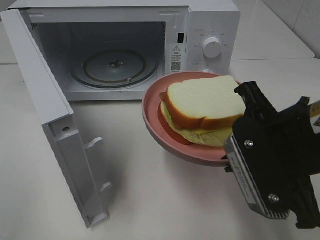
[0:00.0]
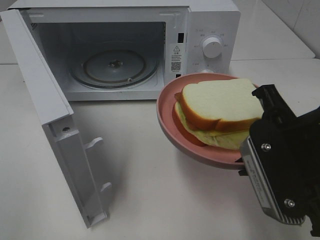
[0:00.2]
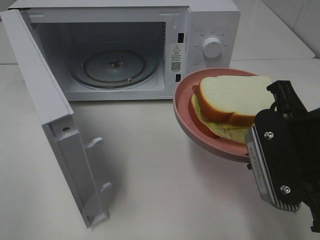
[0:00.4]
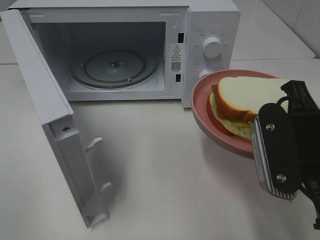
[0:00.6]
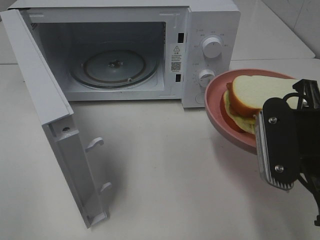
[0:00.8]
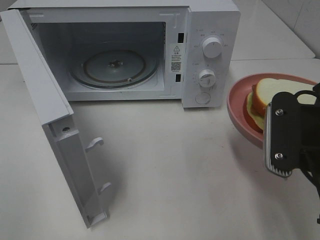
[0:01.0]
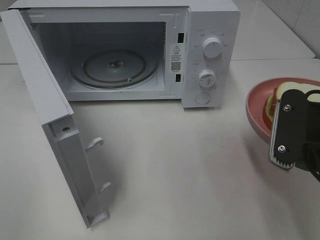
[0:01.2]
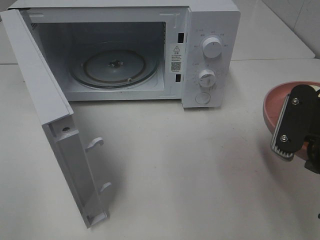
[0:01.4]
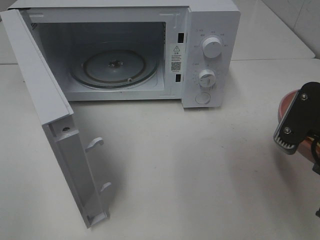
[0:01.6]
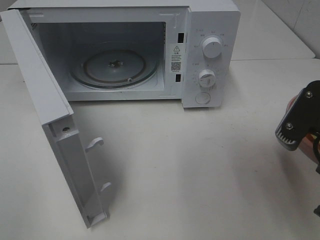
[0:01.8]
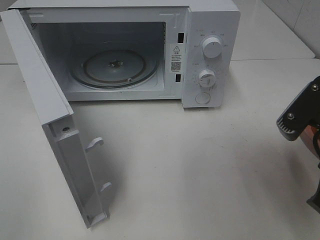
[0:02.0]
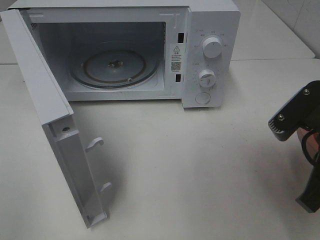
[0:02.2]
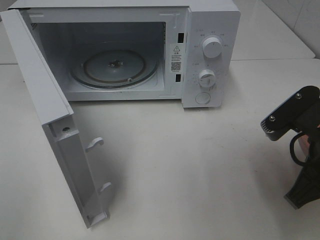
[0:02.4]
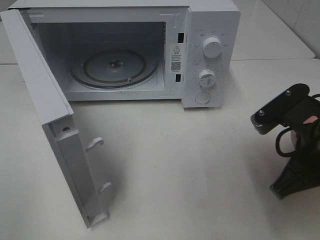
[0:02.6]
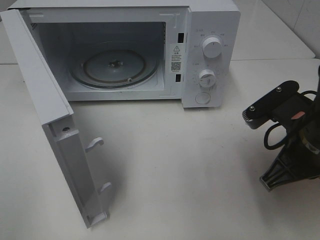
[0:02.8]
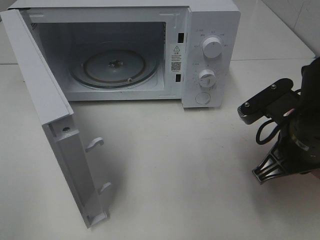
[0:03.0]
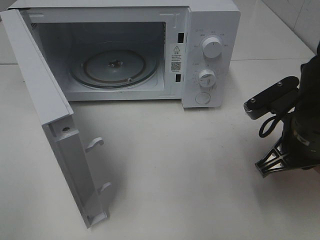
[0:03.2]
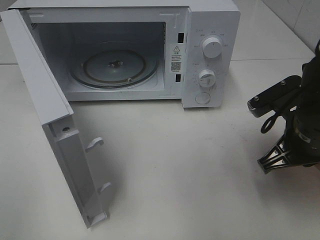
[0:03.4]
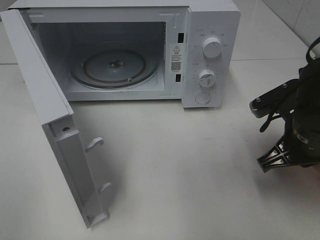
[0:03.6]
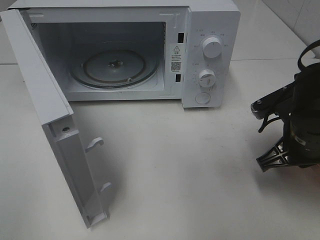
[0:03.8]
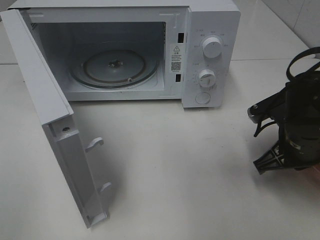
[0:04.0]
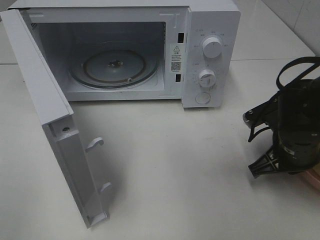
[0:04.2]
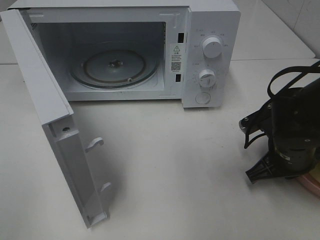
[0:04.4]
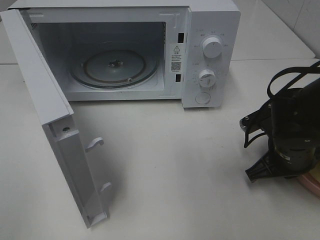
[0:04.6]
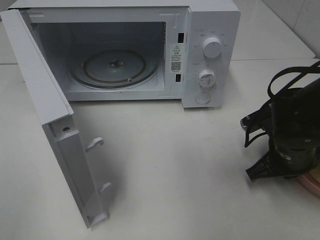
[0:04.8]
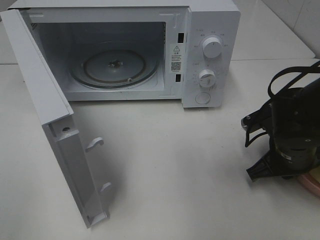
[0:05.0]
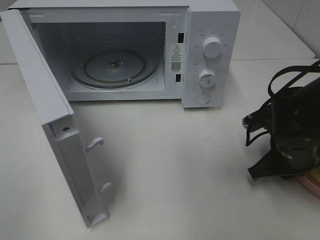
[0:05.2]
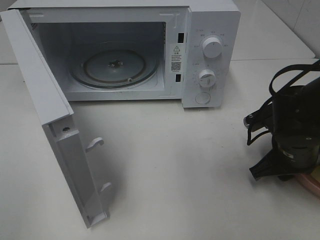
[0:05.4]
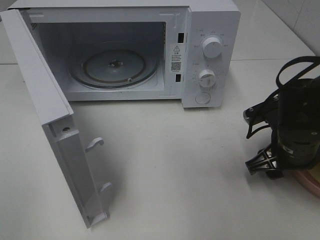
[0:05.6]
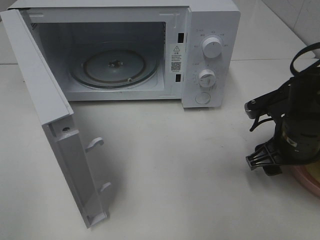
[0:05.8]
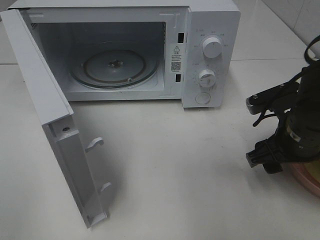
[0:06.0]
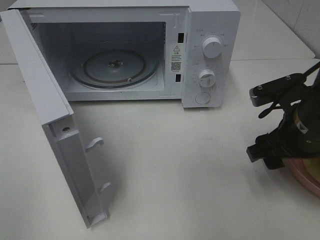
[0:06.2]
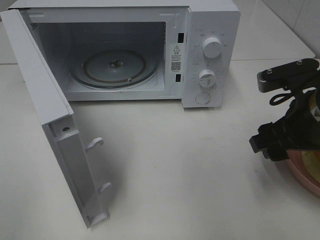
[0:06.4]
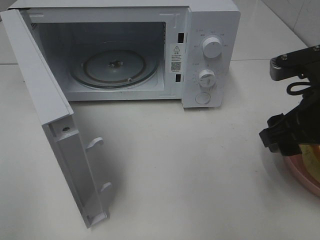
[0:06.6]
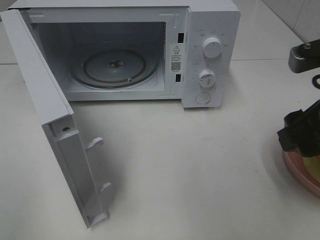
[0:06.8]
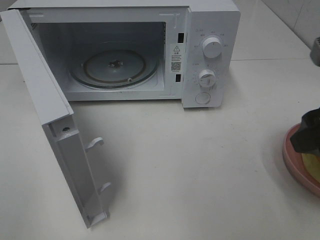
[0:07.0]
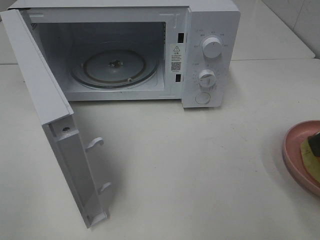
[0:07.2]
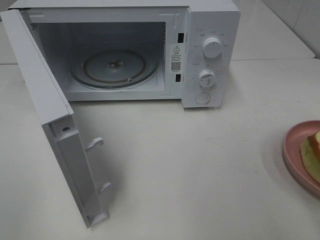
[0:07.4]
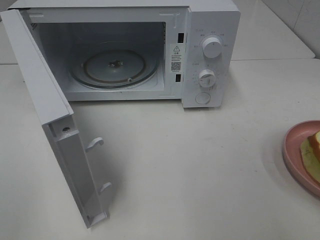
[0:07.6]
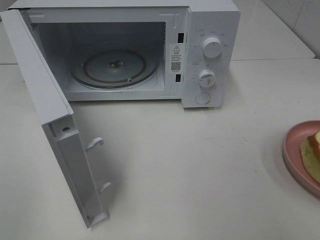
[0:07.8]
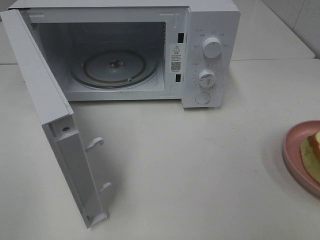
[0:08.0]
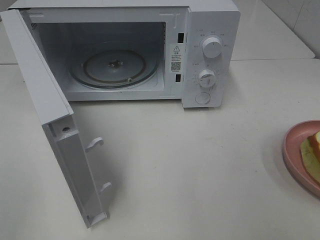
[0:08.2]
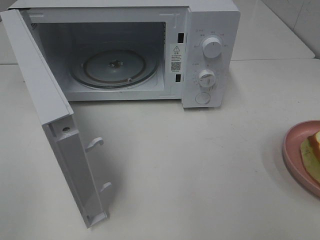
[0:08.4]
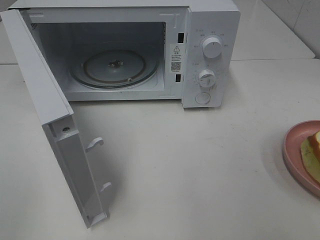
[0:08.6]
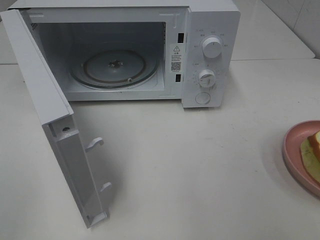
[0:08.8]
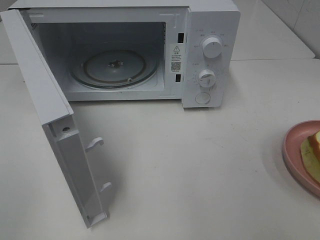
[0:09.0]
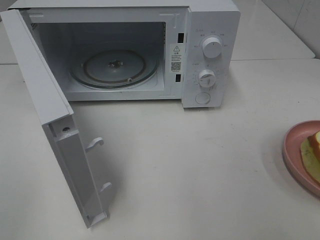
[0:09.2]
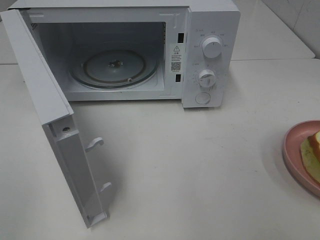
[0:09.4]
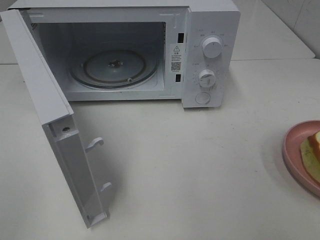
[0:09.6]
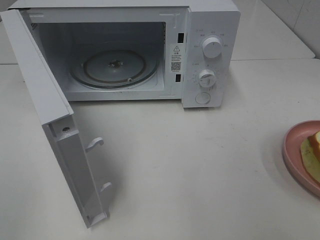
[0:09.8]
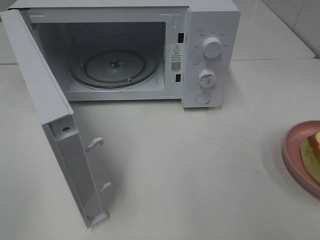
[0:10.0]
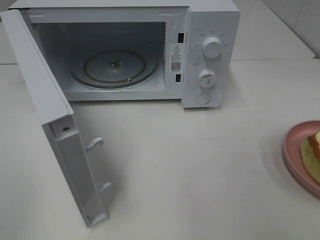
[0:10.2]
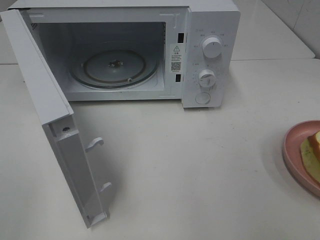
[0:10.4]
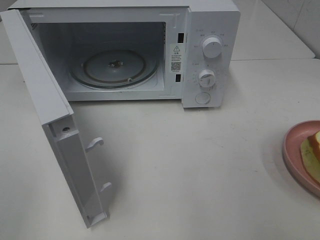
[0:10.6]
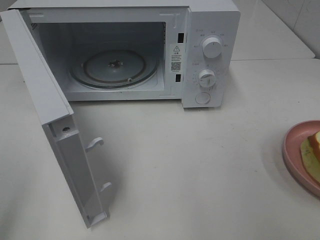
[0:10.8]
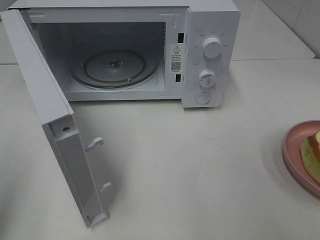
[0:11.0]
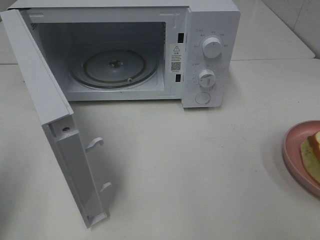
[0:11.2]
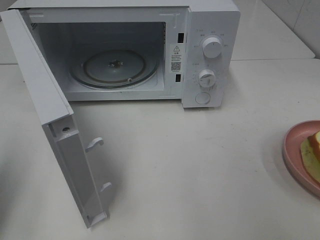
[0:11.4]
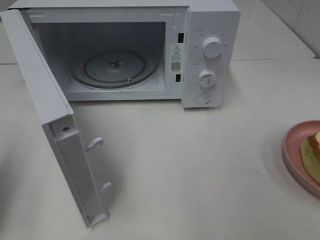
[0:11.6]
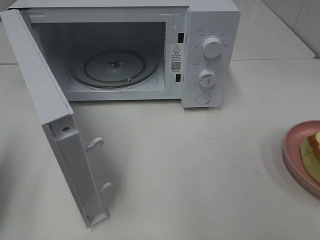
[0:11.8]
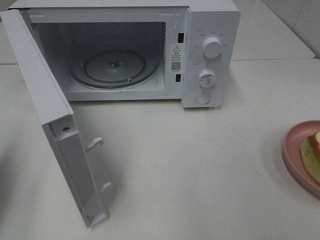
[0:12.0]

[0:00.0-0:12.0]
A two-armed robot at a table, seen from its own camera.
Task of the whole recording: Heat Sandwich.
Step, 0:00.0 to 0:06.6: Right hand: place the plate on the table.
0:00.0 to 0:01.6: The right gripper goes some 5 cm to the right.
0:01.6 to 0:03.0: The right gripper shifts some 5 cm forward.
0:03.0 to 0:04.4: The right gripper travels downward by approximately 10 cm.
0:04.4 to 0:06.0: The right gripper travels upward by about 5 cm, and opens up.
0:06.0 to 0:07.6: The right gripper moves backward and upward, some 25 cm.
0:10.4 to 0:12.0: The left gripper goes roughly 20 cm forward and downward, and closes up.

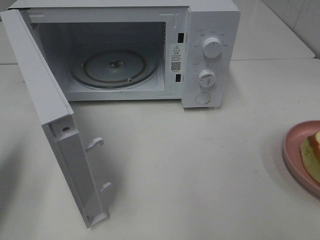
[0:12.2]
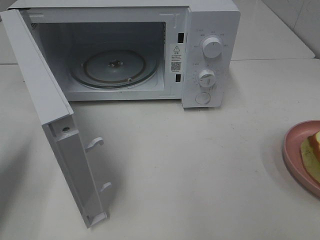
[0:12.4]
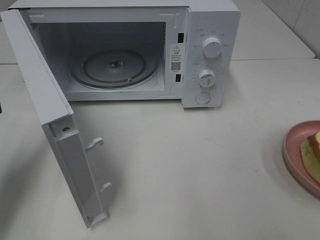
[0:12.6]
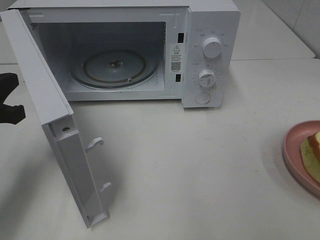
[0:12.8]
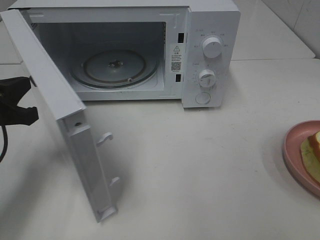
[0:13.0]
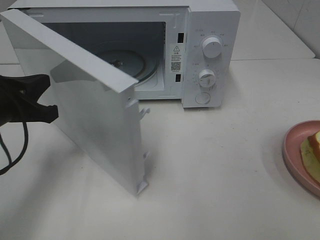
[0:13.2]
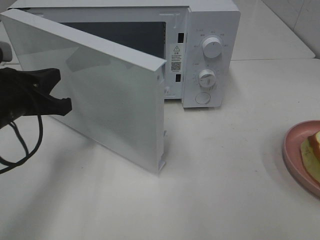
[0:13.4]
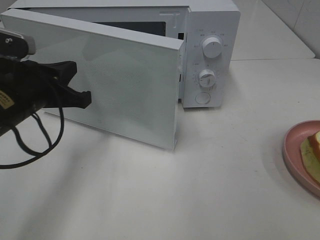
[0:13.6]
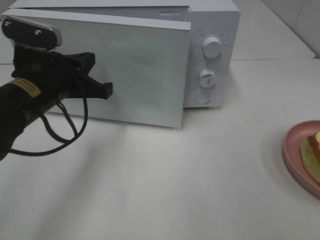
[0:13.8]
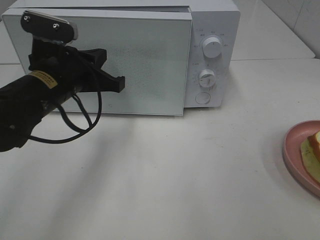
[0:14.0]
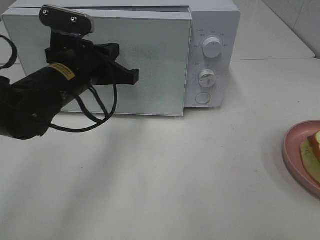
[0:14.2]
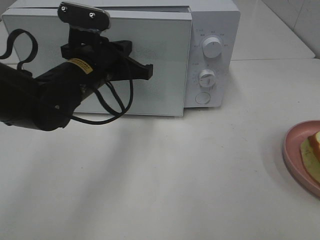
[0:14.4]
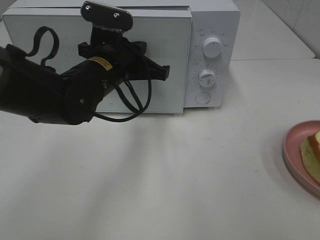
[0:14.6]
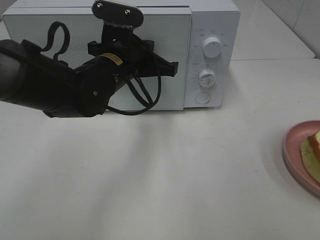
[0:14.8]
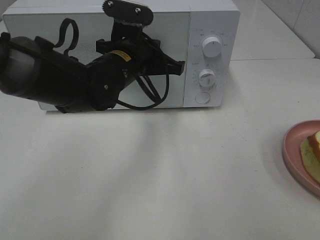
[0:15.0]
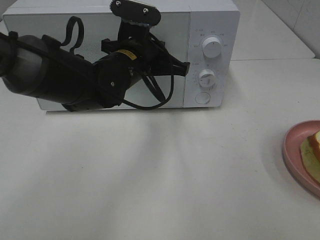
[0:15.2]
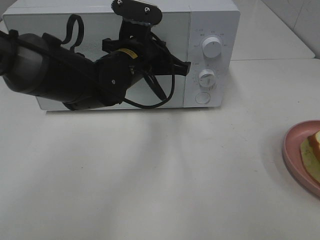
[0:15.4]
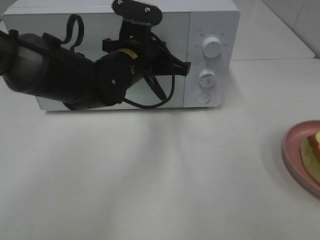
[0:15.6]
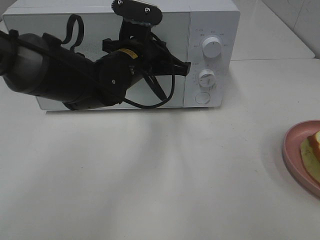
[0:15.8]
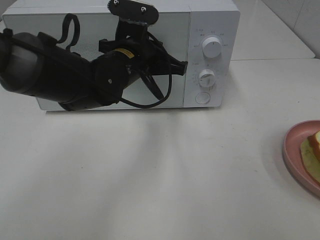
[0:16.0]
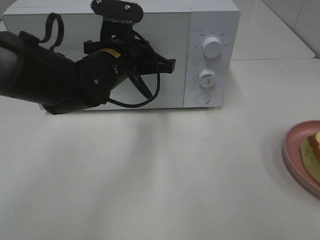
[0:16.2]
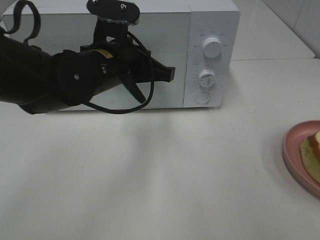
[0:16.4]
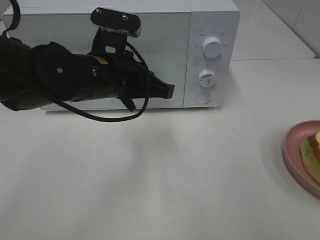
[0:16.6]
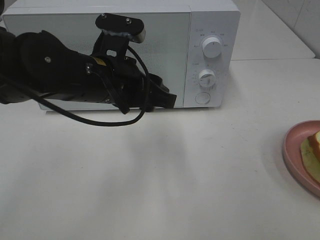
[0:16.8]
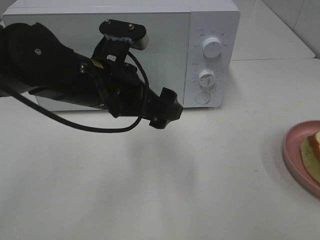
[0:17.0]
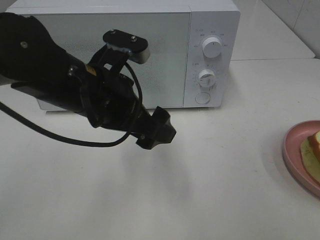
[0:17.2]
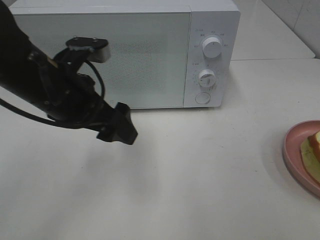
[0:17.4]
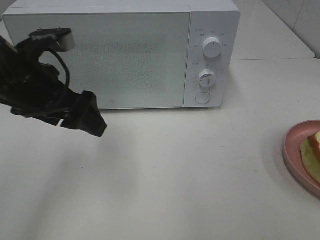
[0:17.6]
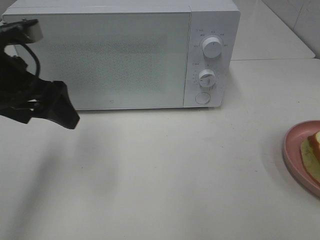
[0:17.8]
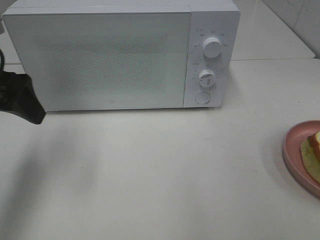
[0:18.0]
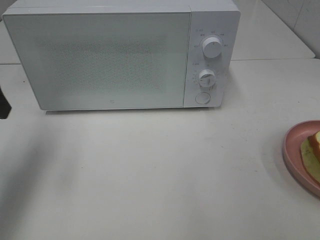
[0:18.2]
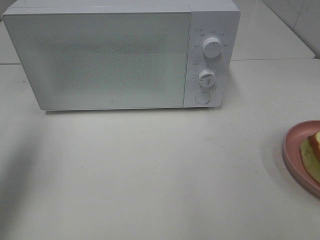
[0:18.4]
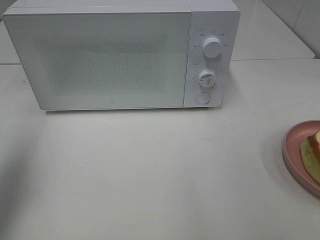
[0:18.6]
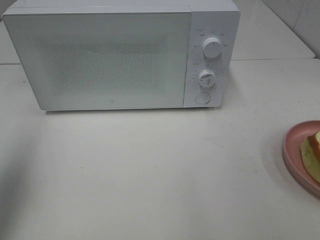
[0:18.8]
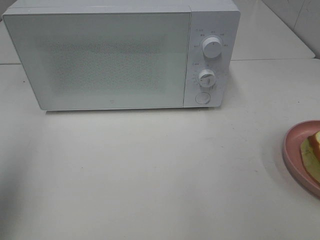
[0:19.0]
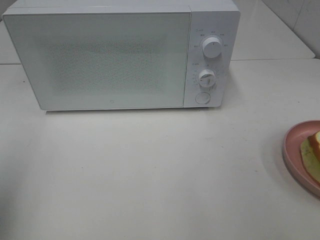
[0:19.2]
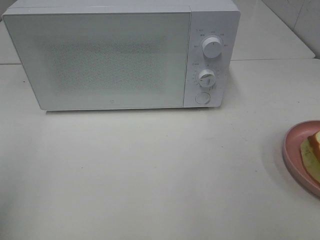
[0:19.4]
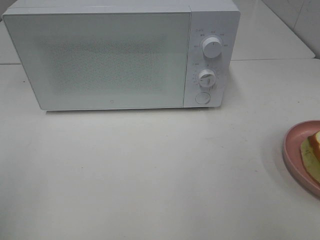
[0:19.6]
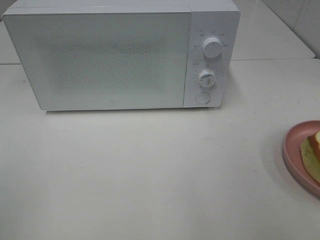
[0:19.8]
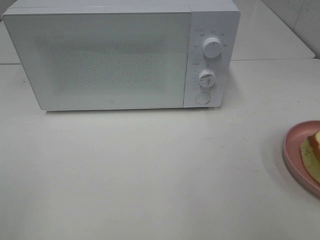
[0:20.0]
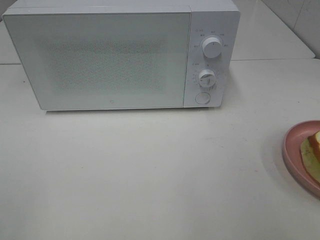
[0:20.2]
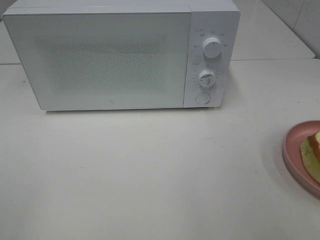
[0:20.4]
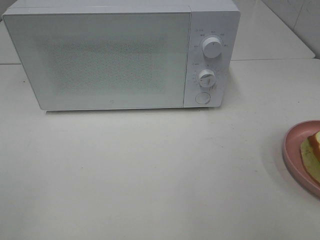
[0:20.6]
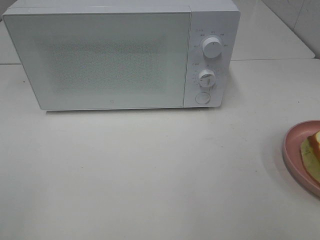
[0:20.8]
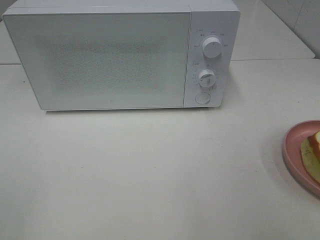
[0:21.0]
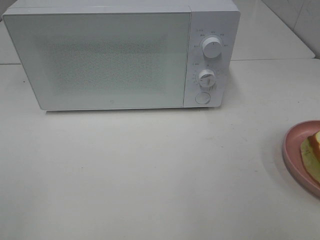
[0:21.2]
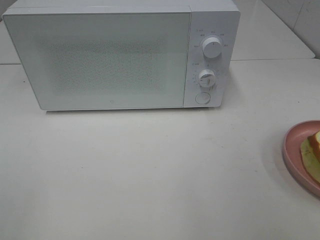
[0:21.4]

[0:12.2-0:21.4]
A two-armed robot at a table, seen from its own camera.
Task of the whole recording: Heat Sandwich.
Step, 0:12.2 to 0:16.4: Left hand: close the microwave door.
0:12.2 to 0:13.8: The left gripper travels to the right and forward by some 20 cm.
0:13.8 to 0:15.2: The left gripper heads to the right and forward, covering about 15 cm.
0:15.2 to 0:16.8: The left gripper travels backward by some 10 cm, and opens.
0:16.8 to 0:18.4: The left gripper goes about 25 cm to the left, and opens.
0:18.4 to 0:19.8: The left gripper travels backward by approximately 20 cm.

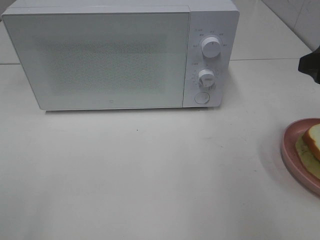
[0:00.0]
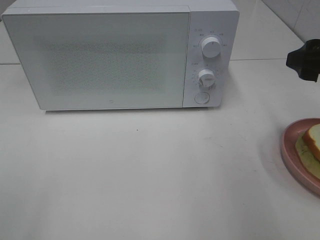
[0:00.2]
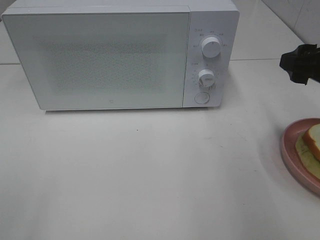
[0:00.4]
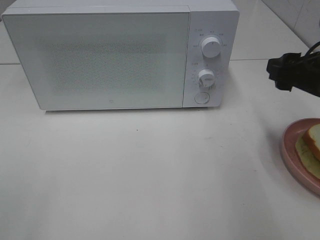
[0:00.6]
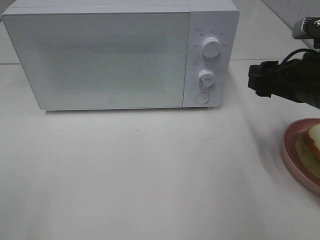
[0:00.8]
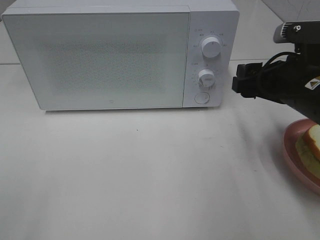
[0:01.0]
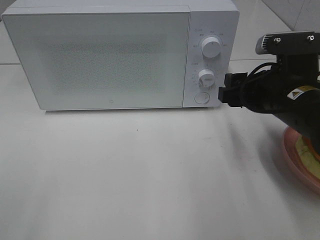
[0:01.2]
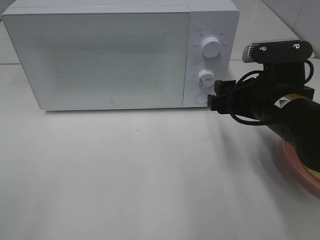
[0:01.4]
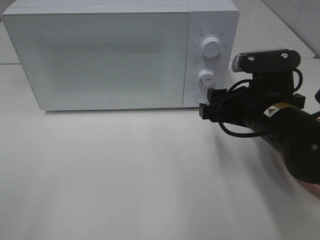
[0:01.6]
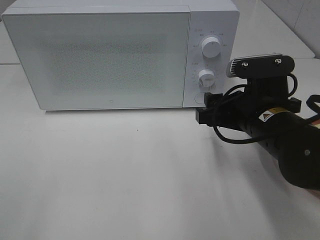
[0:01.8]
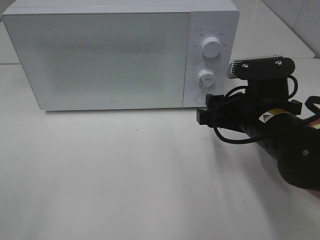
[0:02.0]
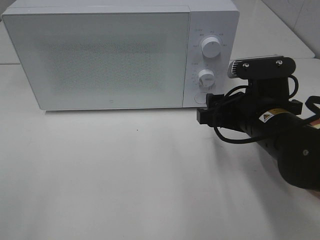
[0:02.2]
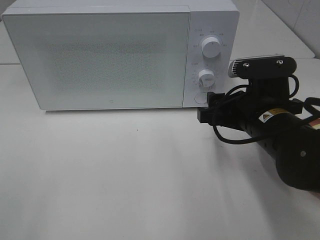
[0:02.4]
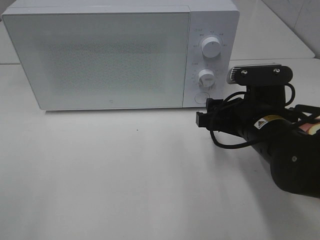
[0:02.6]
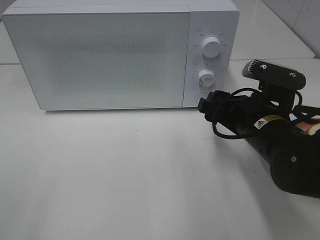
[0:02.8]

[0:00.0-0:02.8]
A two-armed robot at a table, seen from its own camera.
Task of the whole recording: Heat Sandwich.
0:00.0 to 0:01.4: The right gripper is displaced to the left and downward by approximately 15 cm.
0:01.4 to 0:02.8: The grippers stay close to where they were, moving slightly.
